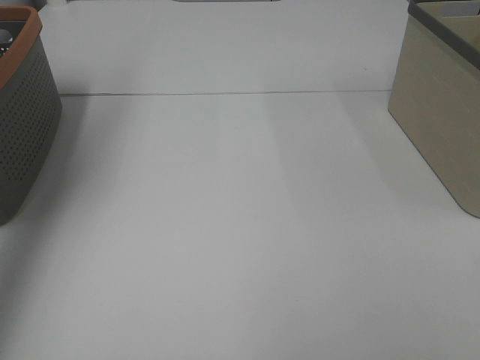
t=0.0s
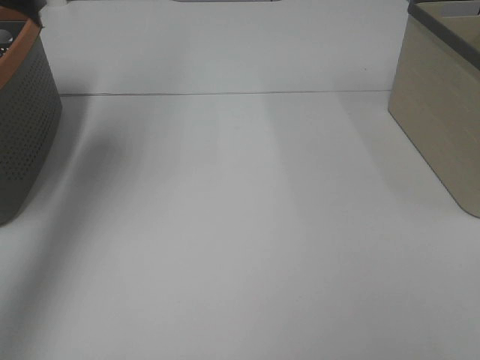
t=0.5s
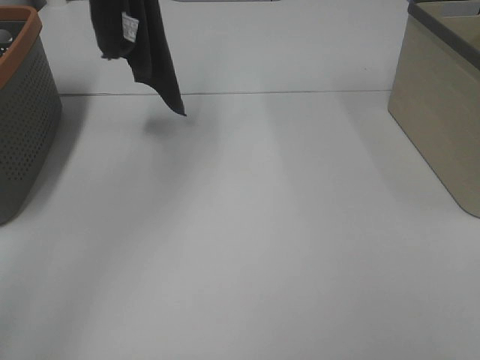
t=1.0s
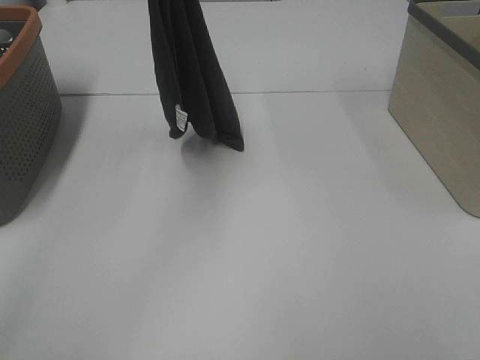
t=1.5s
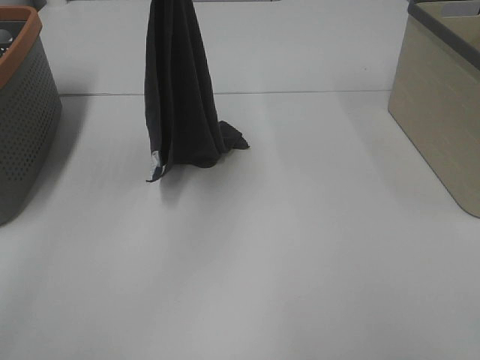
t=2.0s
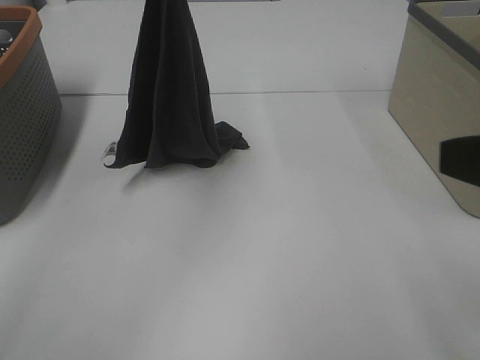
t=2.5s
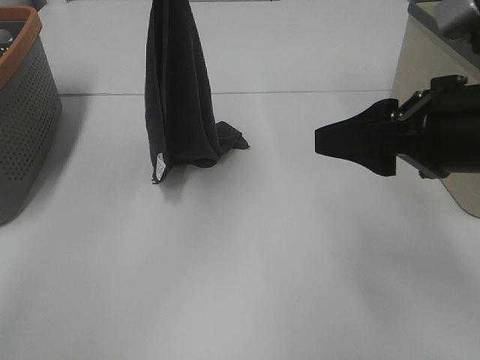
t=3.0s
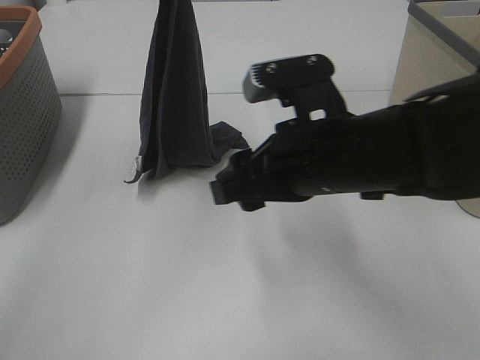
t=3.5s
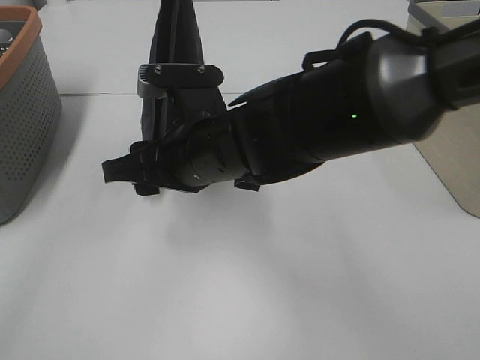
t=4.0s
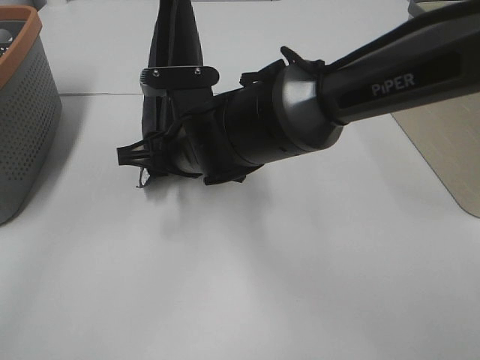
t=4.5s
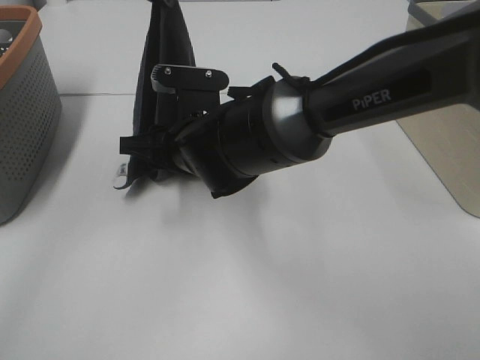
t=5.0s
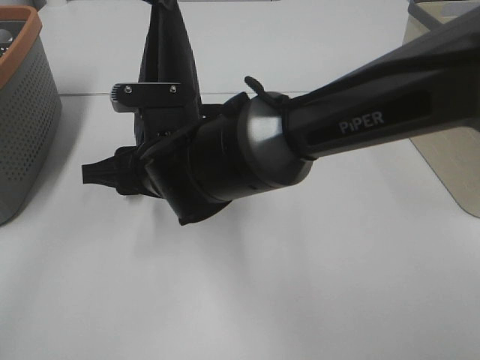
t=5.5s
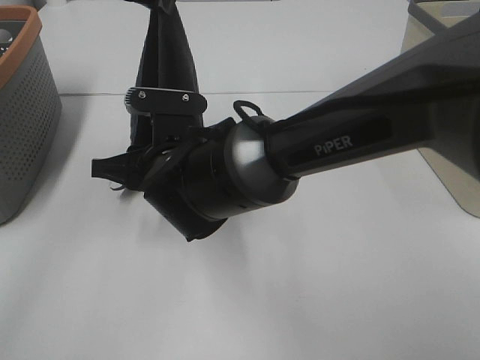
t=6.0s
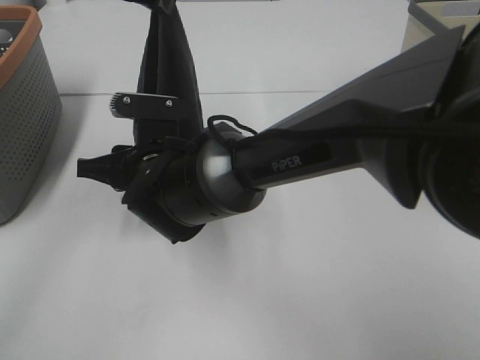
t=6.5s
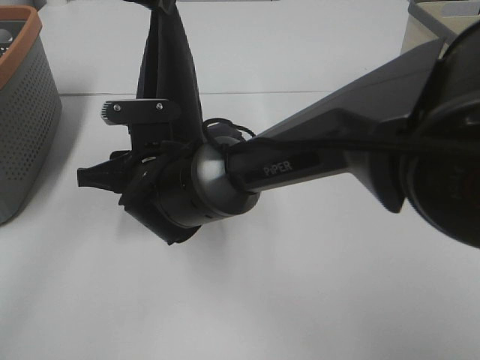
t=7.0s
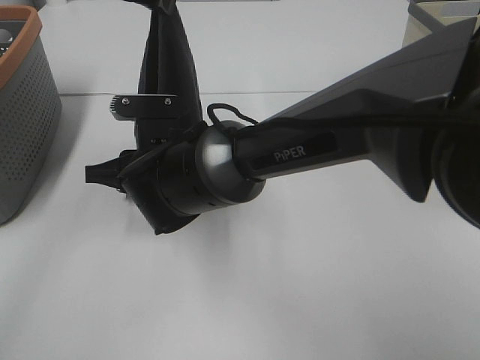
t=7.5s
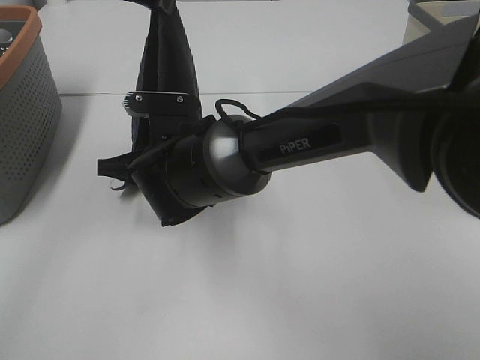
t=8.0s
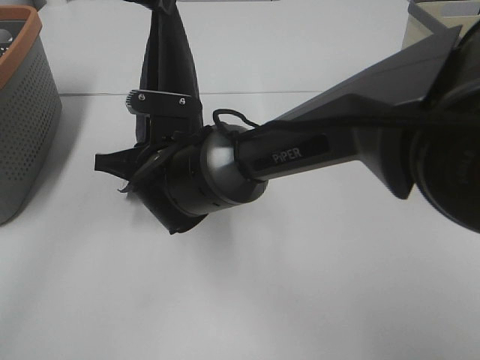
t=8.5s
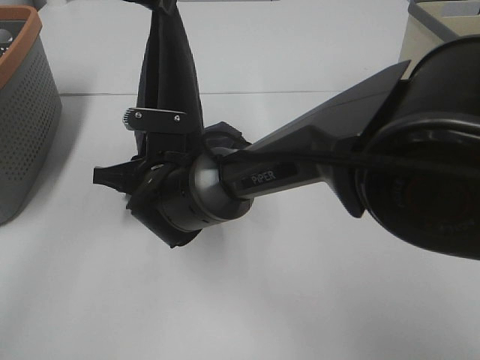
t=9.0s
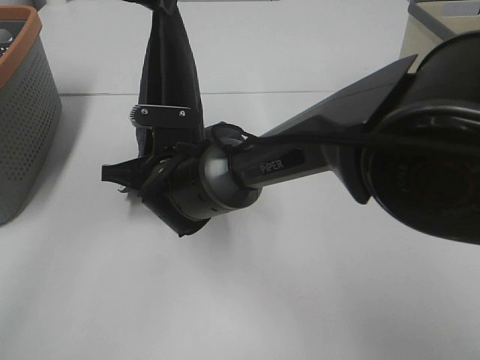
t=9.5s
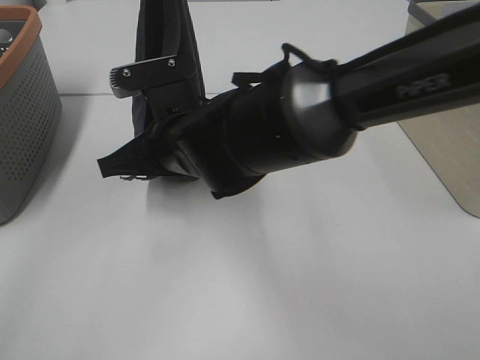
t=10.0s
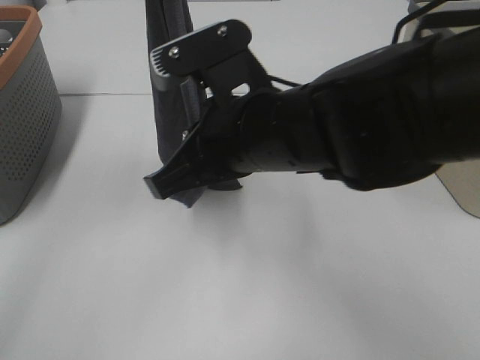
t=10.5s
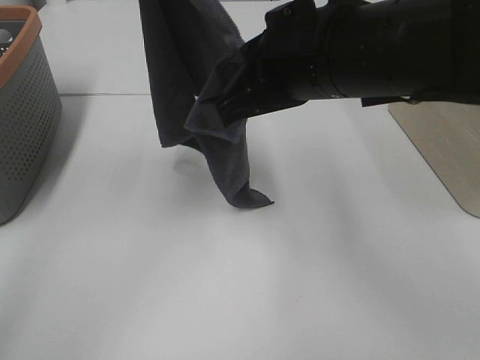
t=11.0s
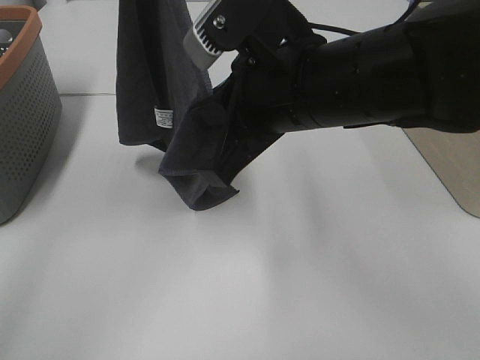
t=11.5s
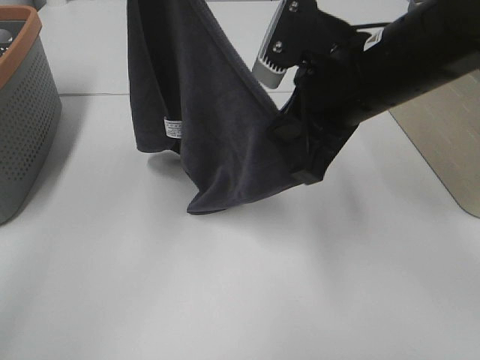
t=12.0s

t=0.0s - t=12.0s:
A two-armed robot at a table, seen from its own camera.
Task of the whole recording: Remove the towel and place it.
Step, t=0.5s - t=8.0s: Right hand: grab a corner of the grey towel and straighten it.
Step, t=8.5s - t=11.0s: Left hand: spread the grey towel flat on the table.
Step, t=8.5s - t=11.0s: Right hand: spread the grey towel flat on the table.
t=0.0s - t=2.0s: The left gripper travels to the right and downward by about 30 cm.
t=2.0s - t=4.0s: The right gripper shifts roughly 40 cm to the left, forward and downward.
t=4.0s - t=6.0s: The right gripper shifts by about 5 cm.
t=6.0s - t=8.0s: The grippers stay close to where they were, moving slightly.
t=8.0s - t=10.0s: The left gripper shifts by approximately 5 cm. Meanwhile the right gripper is displaced upward by roughly 5 cm, and closes.
t=10.0s - t=12.0s: The right gripper travels to the right and upward by some 20 cm.

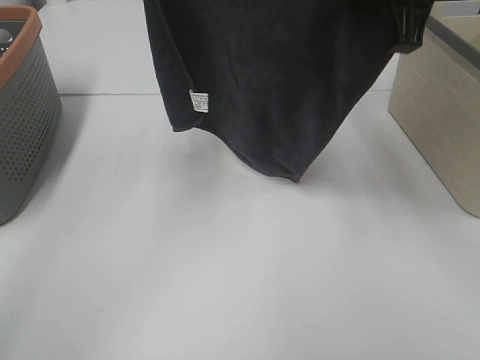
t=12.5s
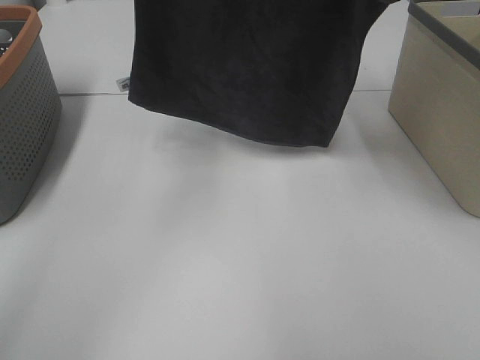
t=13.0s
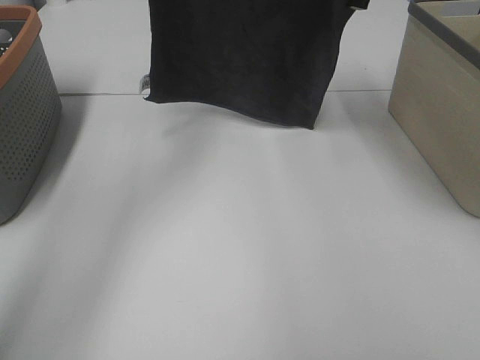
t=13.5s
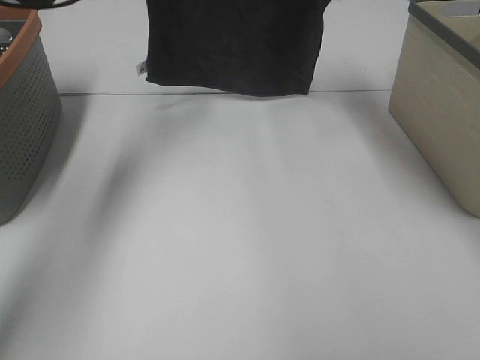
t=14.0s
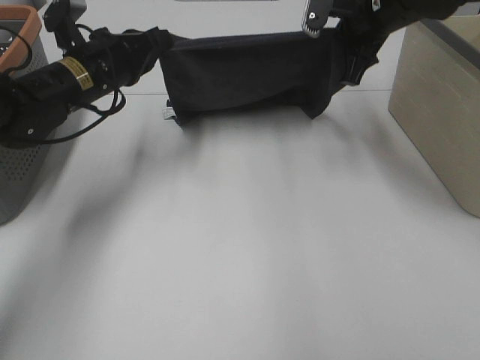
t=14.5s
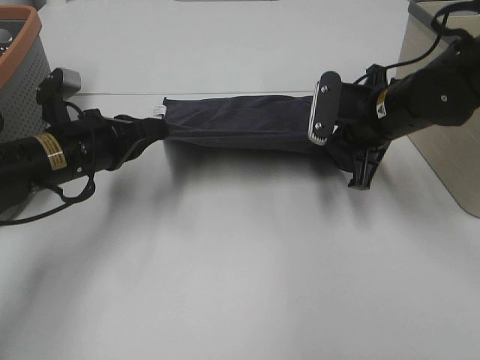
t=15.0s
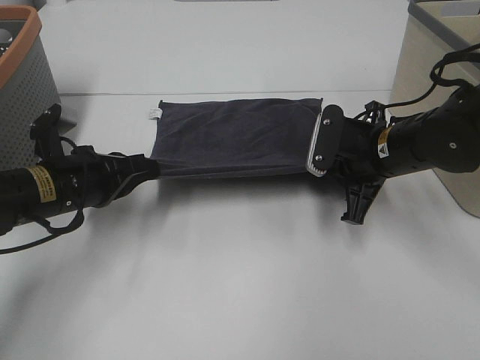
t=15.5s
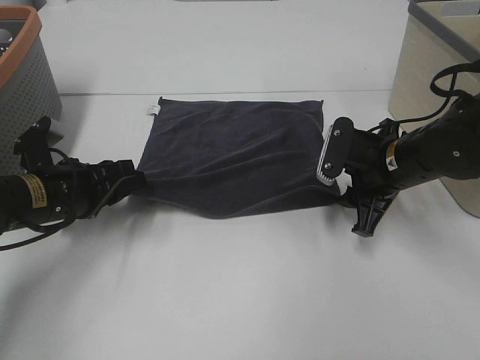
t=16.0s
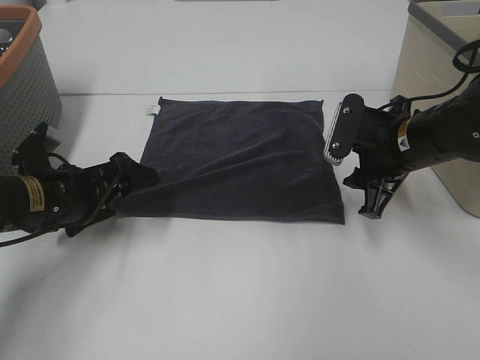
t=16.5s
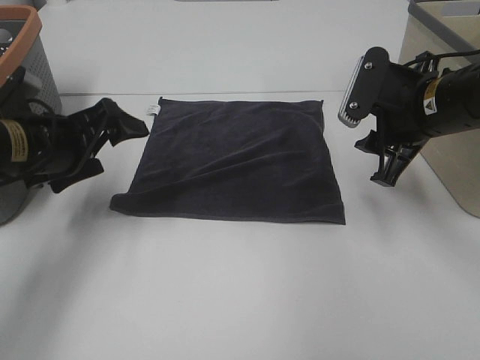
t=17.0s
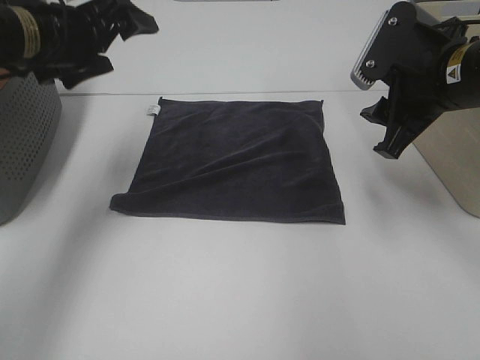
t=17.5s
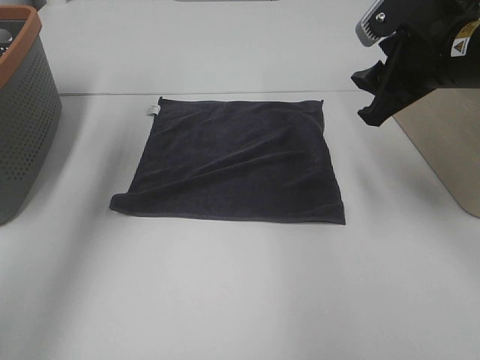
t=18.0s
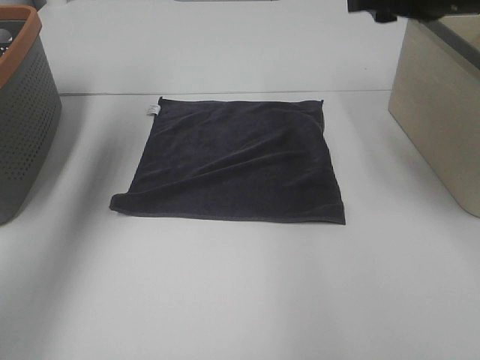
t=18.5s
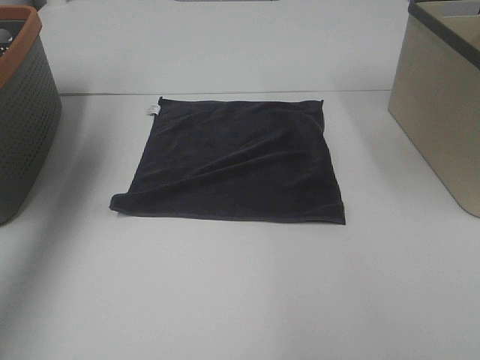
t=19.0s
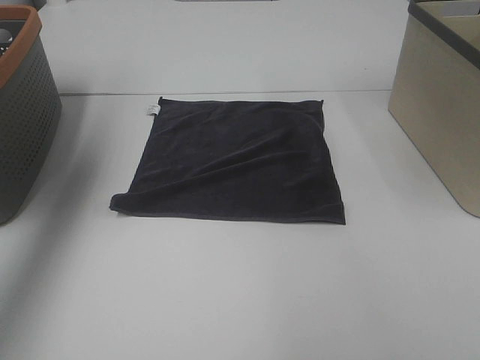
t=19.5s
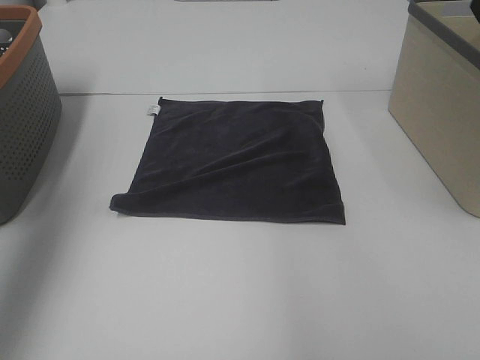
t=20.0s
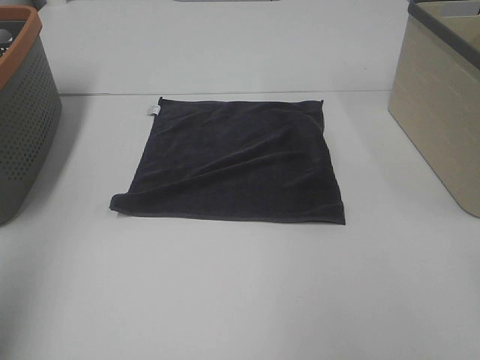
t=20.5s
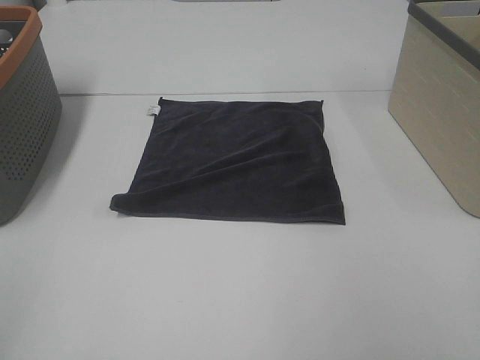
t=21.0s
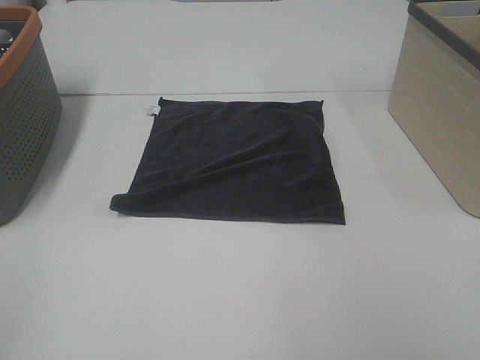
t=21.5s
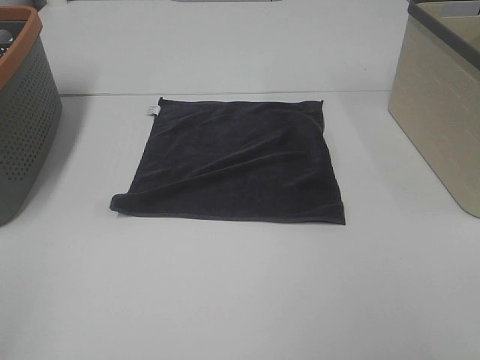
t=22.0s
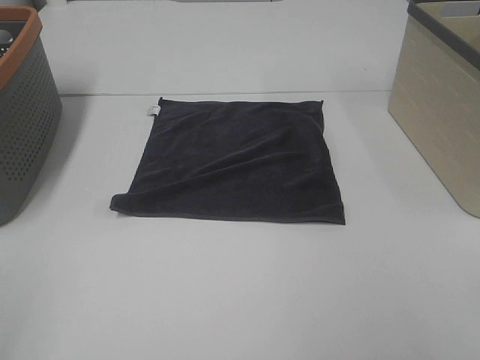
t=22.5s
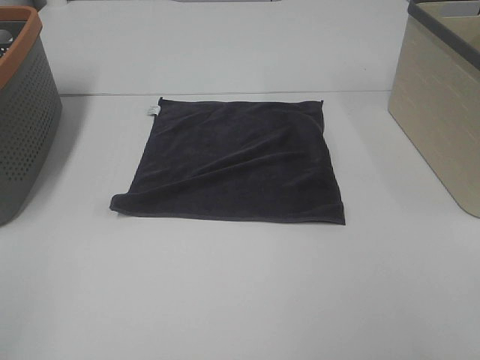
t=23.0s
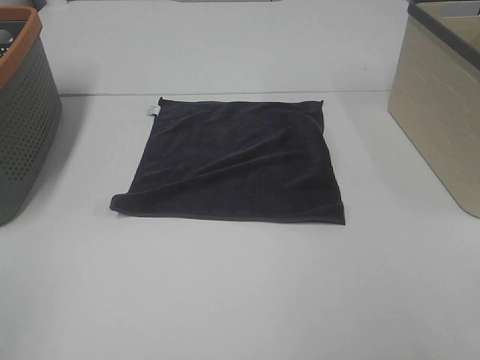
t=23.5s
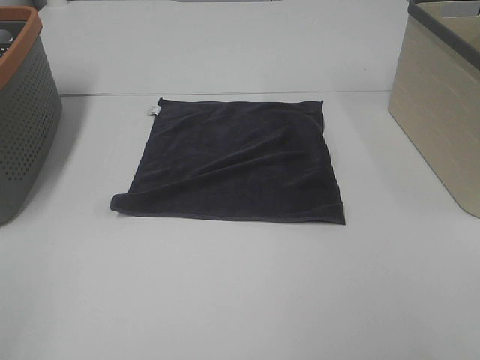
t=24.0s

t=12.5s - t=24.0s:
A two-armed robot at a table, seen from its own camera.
Task of the whole recording: Remove the towel and place it.
t=12.5s - t=14.5s: The right gripper travels downward and forward by approximately 15 cm; the left gripper travels downward by roughly 25 cm.
t=14.5s - t=16.5s: The left gripper goes about 15 cm backward and downward, and opens up; the right gripper heads downward and backward, covering approximately 15 cm, and opens.
t=16.5s - t=18.5s: The right gripper travels upward by about 20 cm. The left gripper goes about 30 cm upward and forward.
t=18.5s - t=20.0s: The right gripper moves upward and backward, approximately 10 cm, while the left gripper is displaced backward by about 20 cm.
t=20.0s - t=22.0s: The left gripper moves backward and downward, about 25 cm.

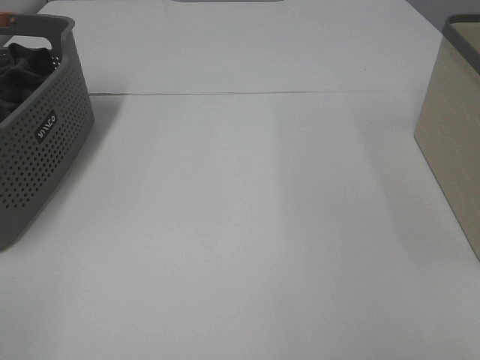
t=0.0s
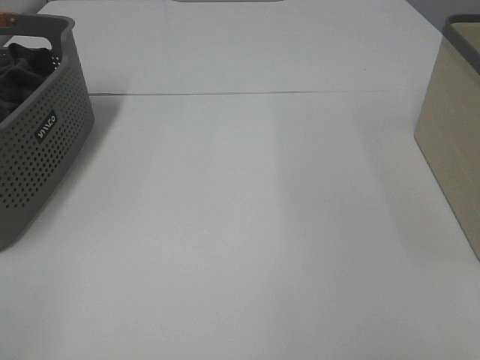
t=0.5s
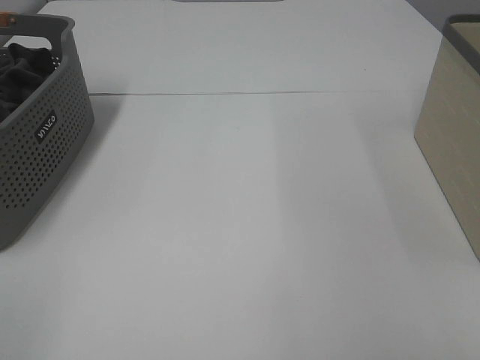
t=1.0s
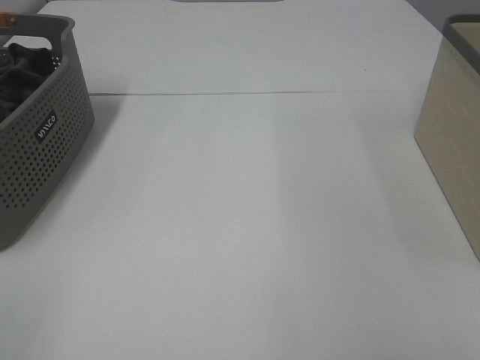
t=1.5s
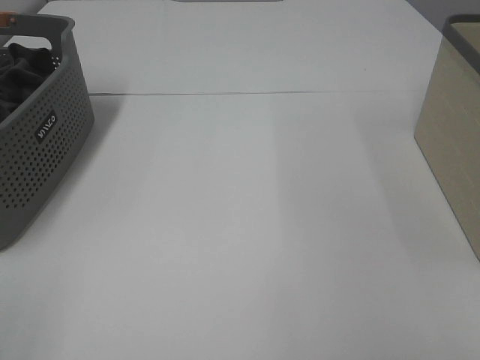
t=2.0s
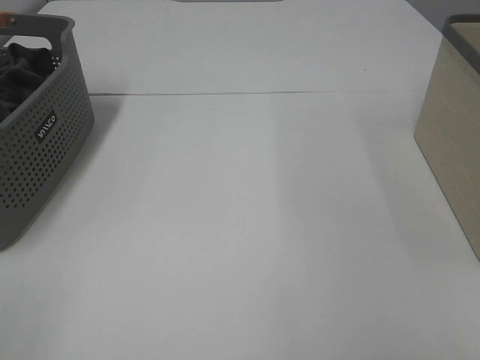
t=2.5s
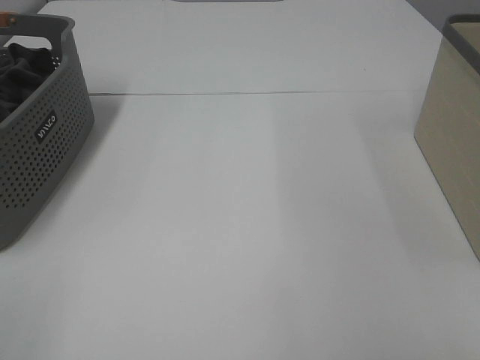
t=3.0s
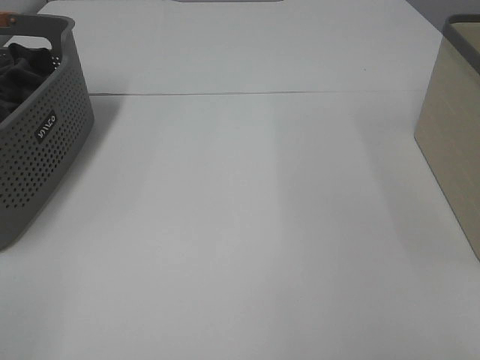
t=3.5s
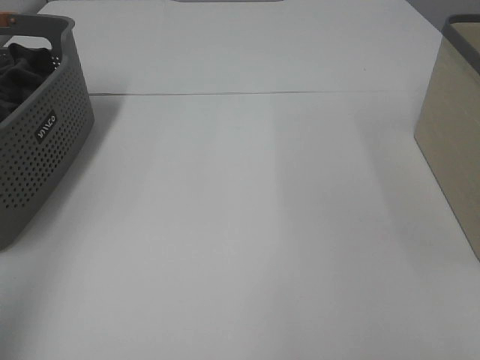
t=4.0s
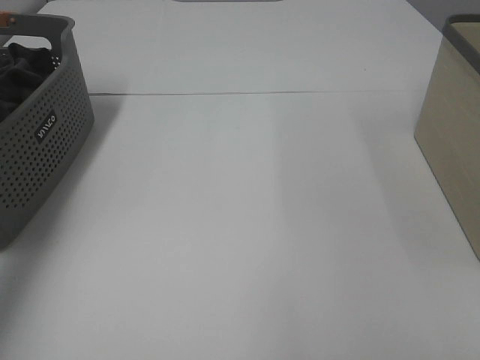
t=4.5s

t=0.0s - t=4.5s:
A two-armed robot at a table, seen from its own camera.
Task of the whole recording: Remove the towel and place it.
t=0.0s - t=2.0s: Both grippers stay put.
t=2.0s - t=4.5s: The left gripper shifts roughly 35 cm forward.
